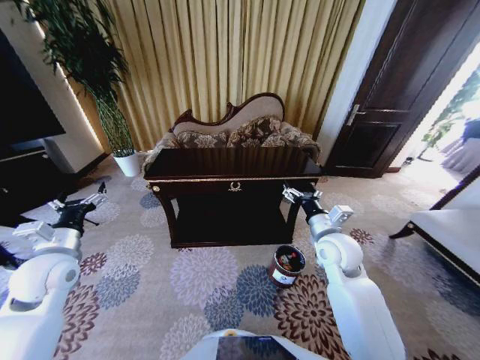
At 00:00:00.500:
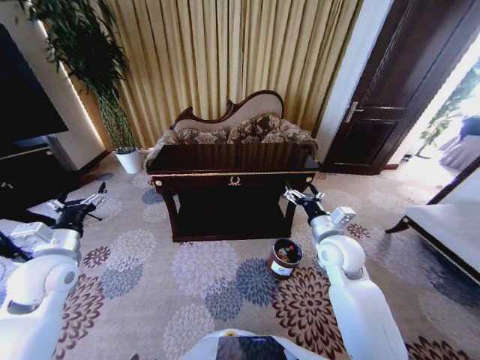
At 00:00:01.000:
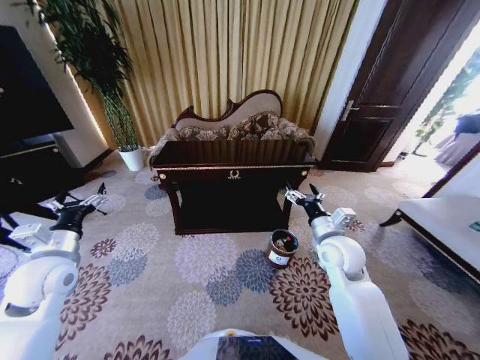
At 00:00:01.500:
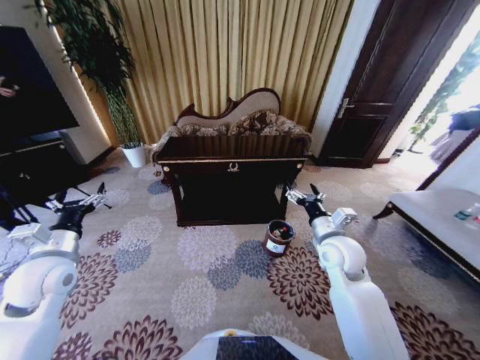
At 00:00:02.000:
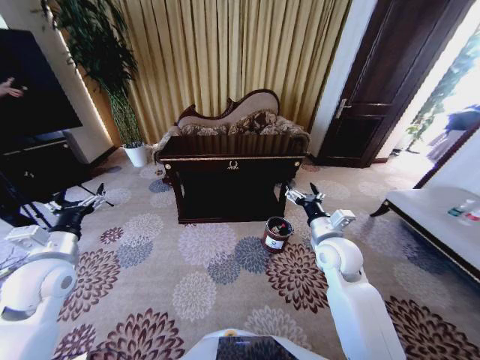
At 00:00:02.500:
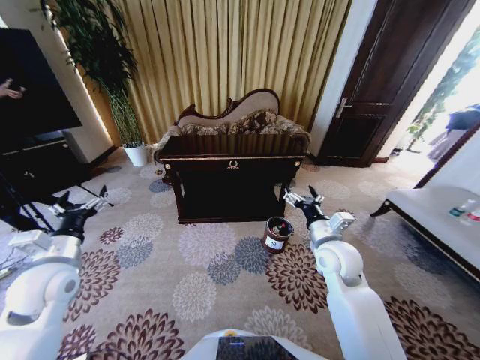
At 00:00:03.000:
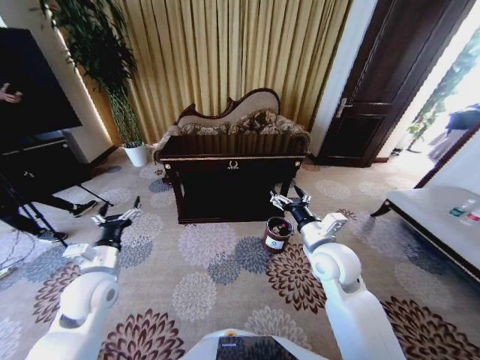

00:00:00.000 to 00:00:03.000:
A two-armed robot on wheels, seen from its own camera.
Task of the whole recording: Move to the front of the table and place the trash on the table into the trash bin.
00:00:01.500 to 00:00:03.000: The left gripper heads to the right and downward, covering approximately 10 cm.
